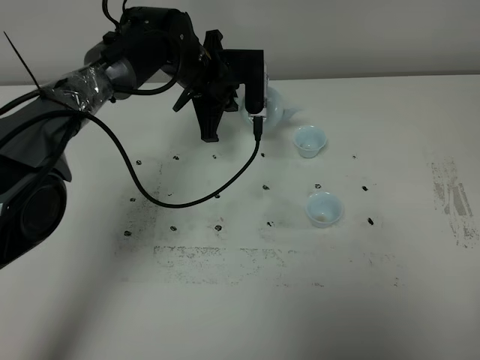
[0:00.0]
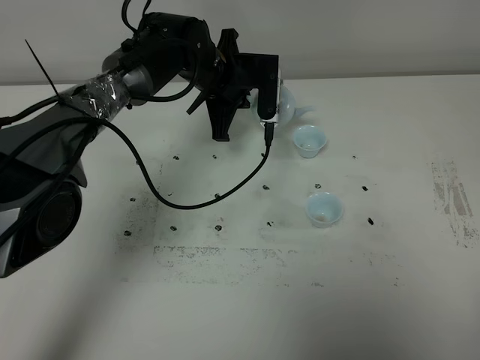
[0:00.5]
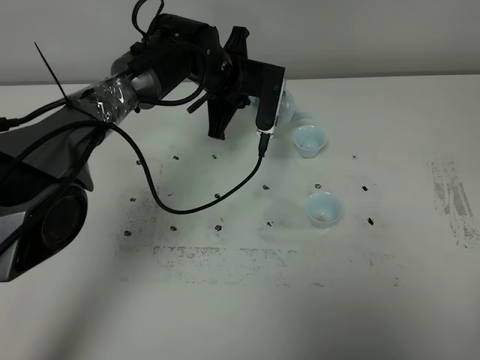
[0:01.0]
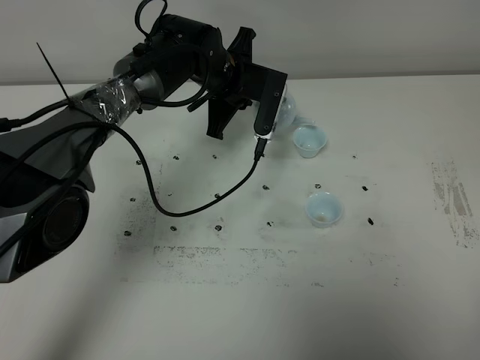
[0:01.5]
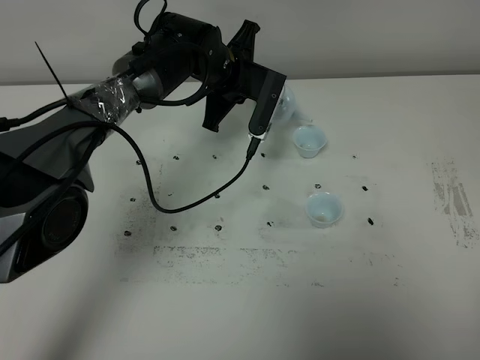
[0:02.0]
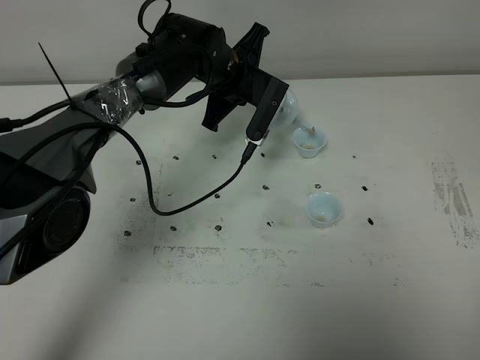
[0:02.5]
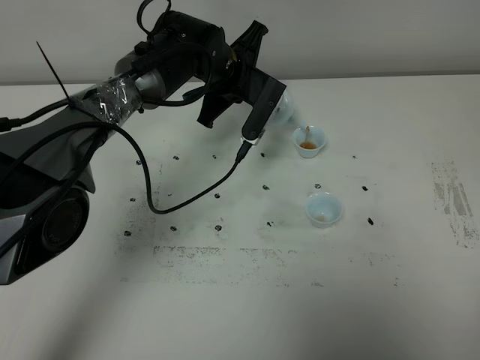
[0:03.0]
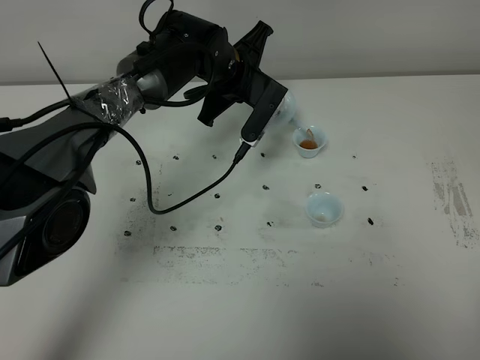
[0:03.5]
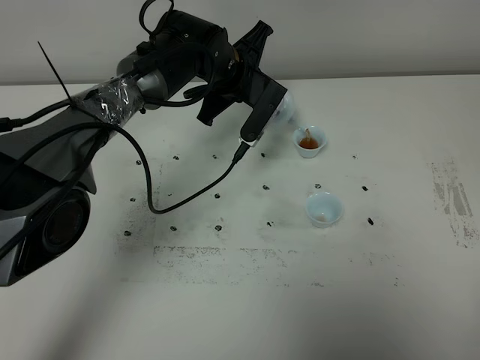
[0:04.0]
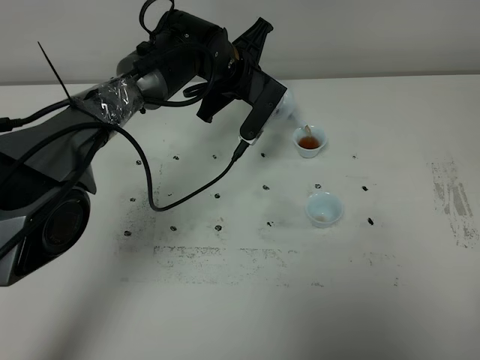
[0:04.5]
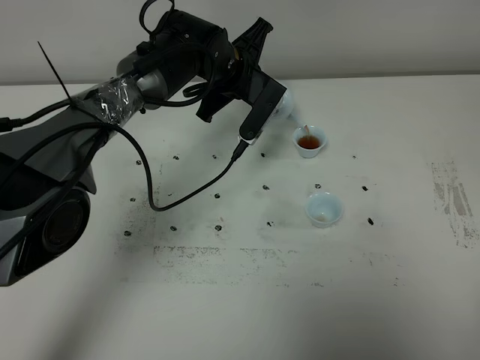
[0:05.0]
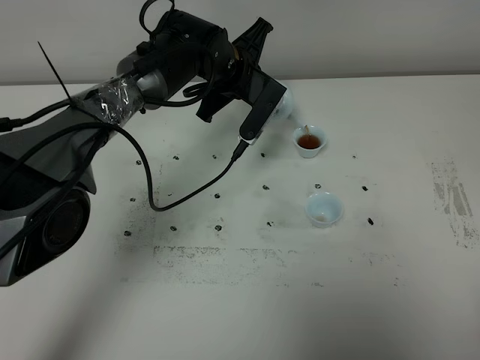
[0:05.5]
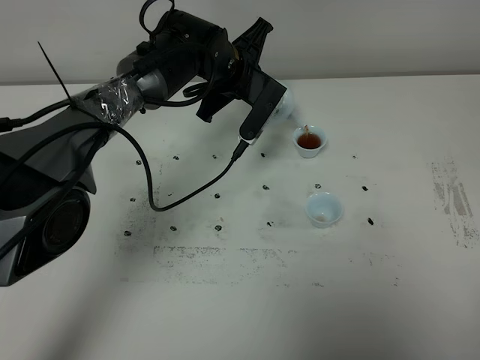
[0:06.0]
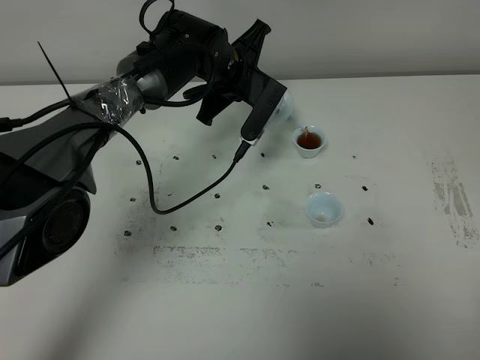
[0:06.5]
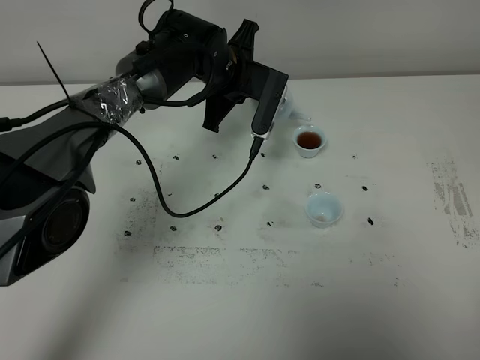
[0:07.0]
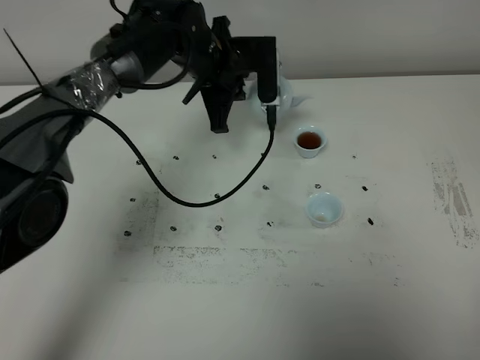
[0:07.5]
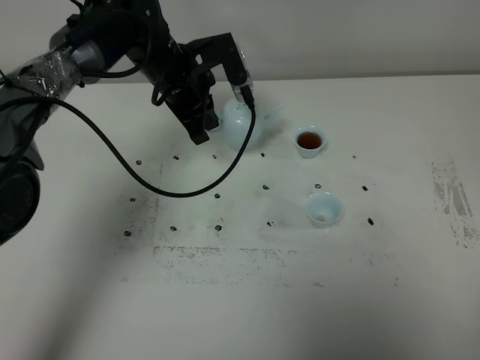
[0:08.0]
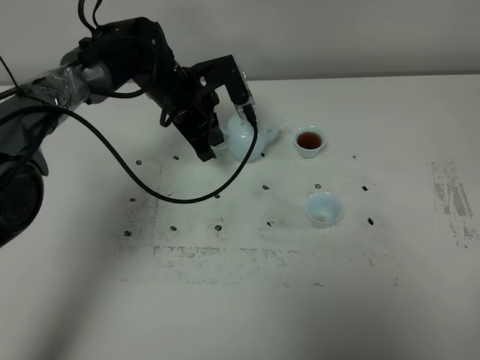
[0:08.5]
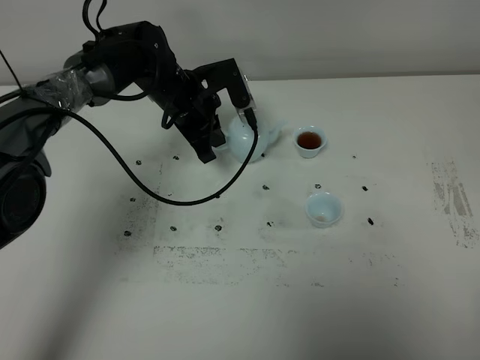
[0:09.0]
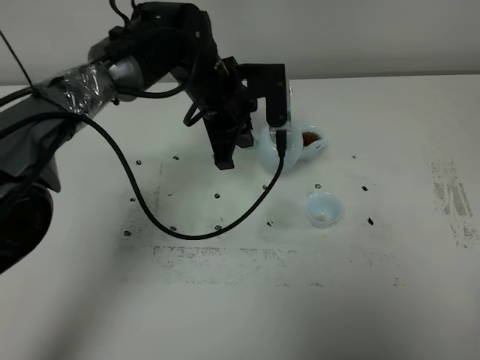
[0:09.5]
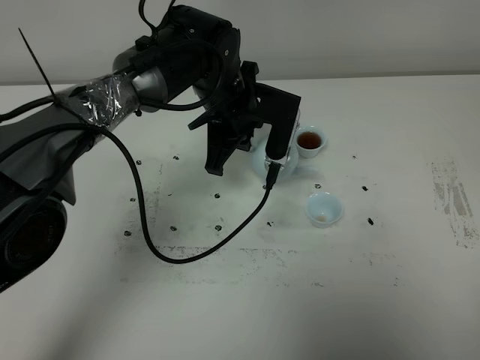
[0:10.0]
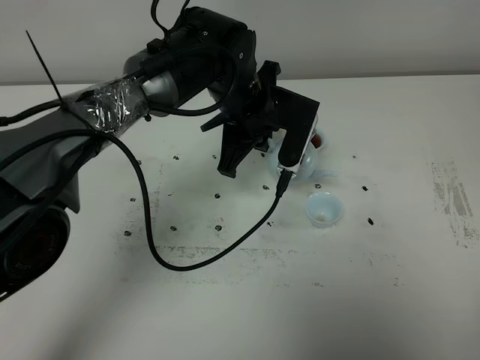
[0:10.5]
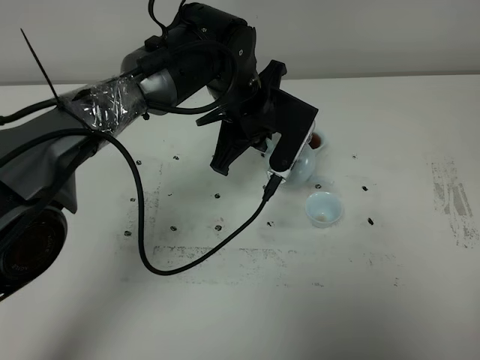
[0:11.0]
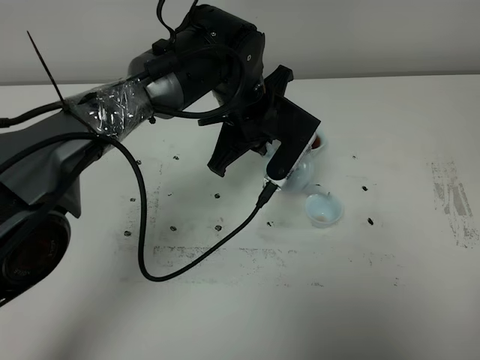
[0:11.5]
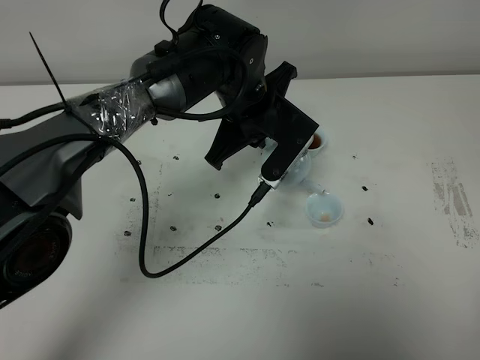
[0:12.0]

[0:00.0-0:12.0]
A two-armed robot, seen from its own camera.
Task of the whole recording: grasp the blue porcelain teapot and pour the tea into the two blue porcelain teacups one by one, put the blue porcelain teapot back in its original place.
2.0 to 4.0 s: The grippers make only small movements.
4.0 to 6.0 s: The two grippers keep their place.
6.0 to 8.0 s: The left gripper is displaced to the left by roughly 5 cm.
8.0 to 10.0 s: The left gripper shifts some 10 cm to the right and backward.

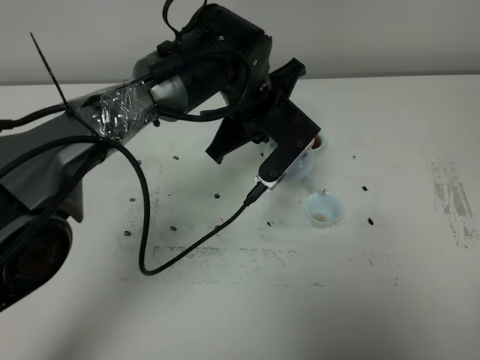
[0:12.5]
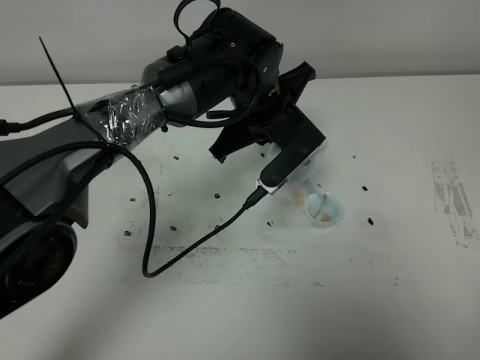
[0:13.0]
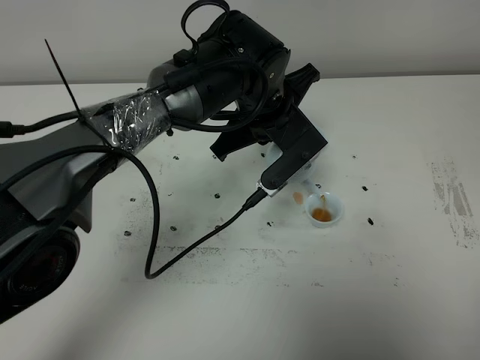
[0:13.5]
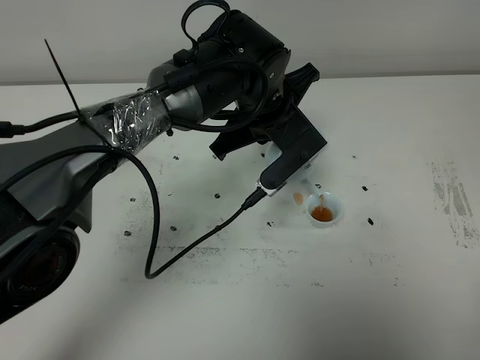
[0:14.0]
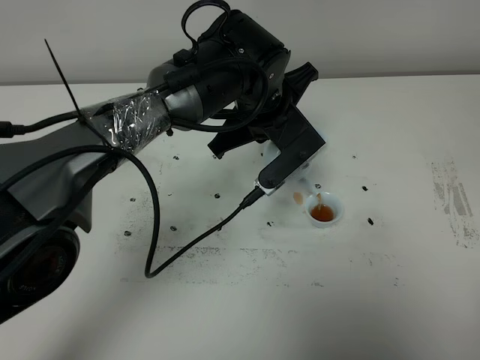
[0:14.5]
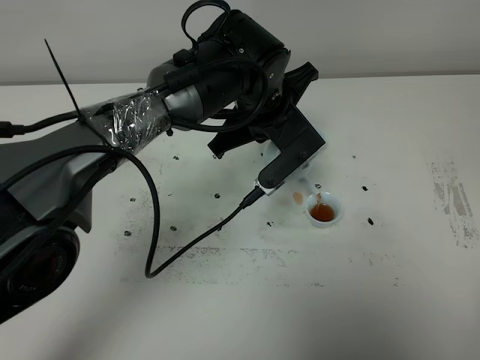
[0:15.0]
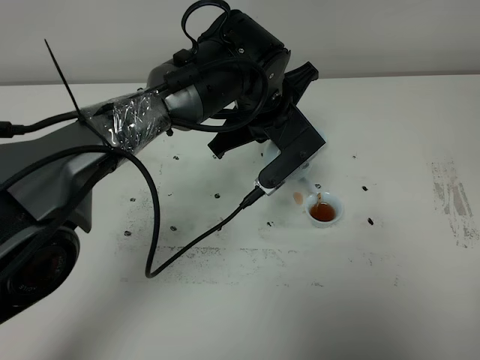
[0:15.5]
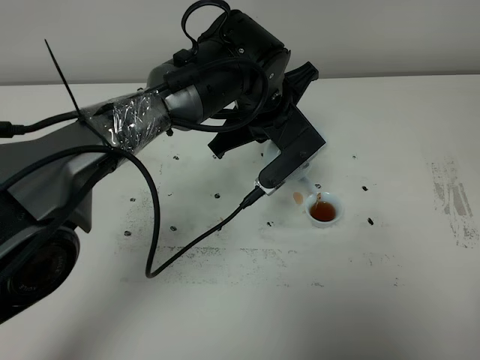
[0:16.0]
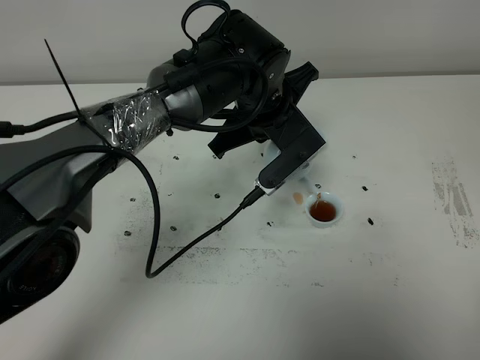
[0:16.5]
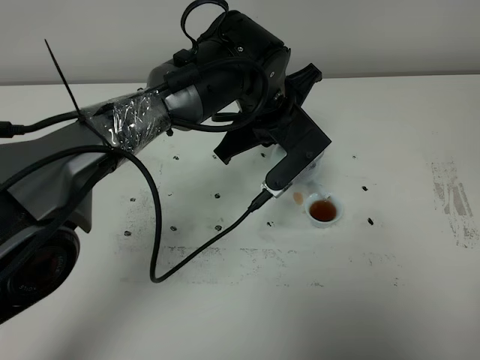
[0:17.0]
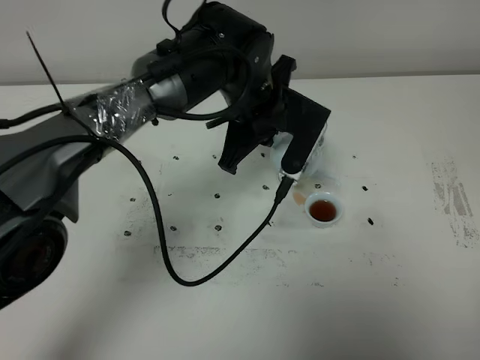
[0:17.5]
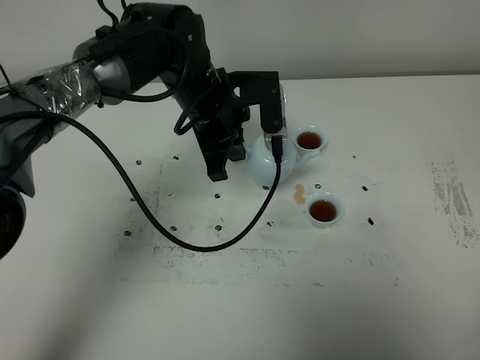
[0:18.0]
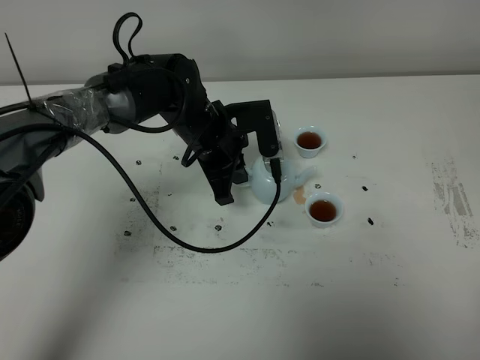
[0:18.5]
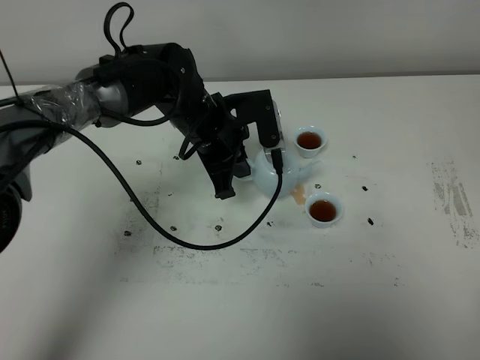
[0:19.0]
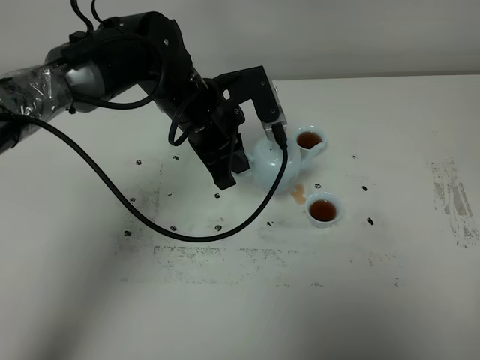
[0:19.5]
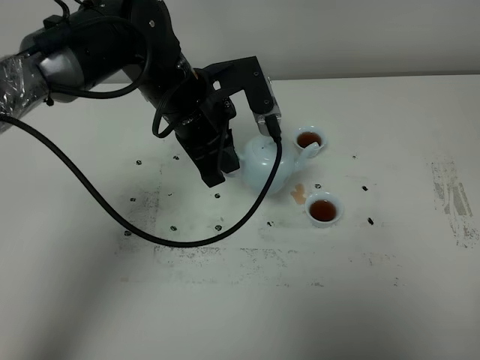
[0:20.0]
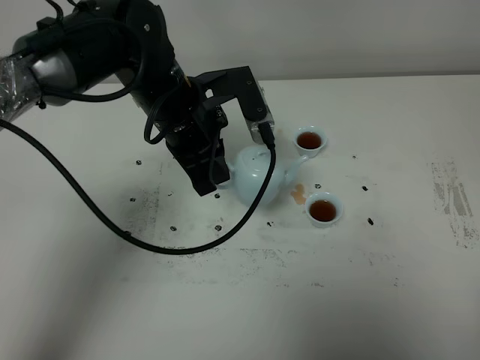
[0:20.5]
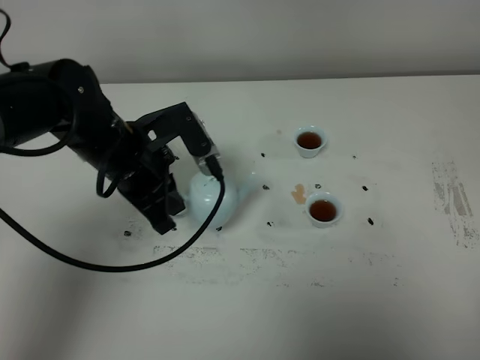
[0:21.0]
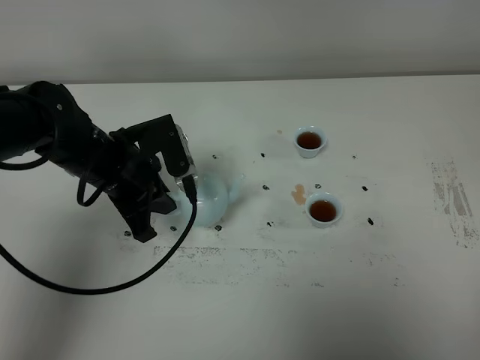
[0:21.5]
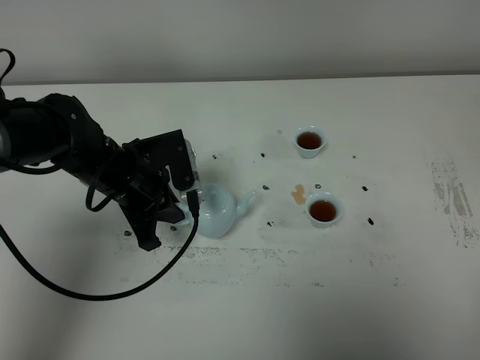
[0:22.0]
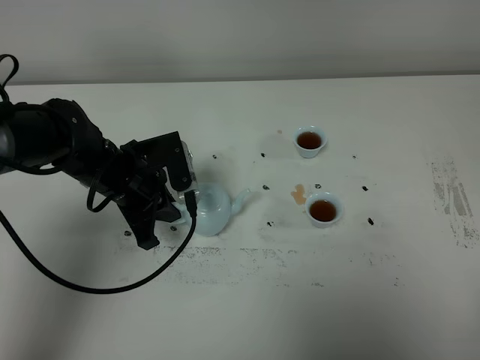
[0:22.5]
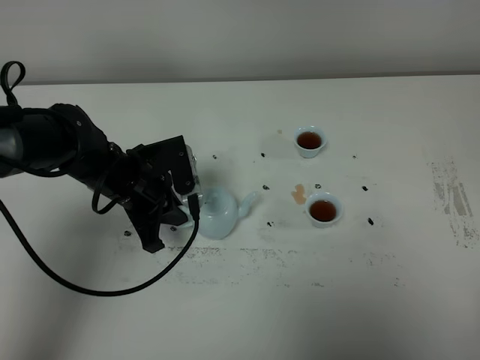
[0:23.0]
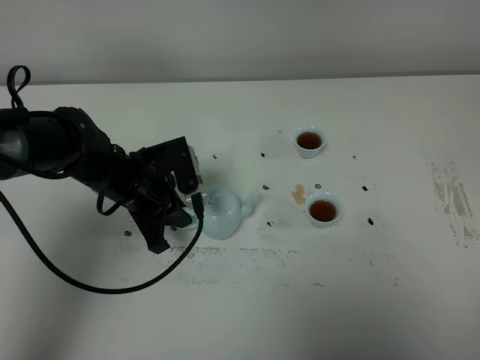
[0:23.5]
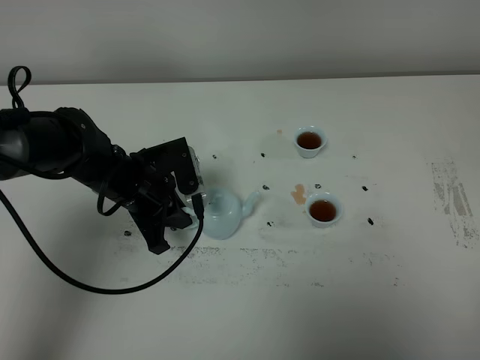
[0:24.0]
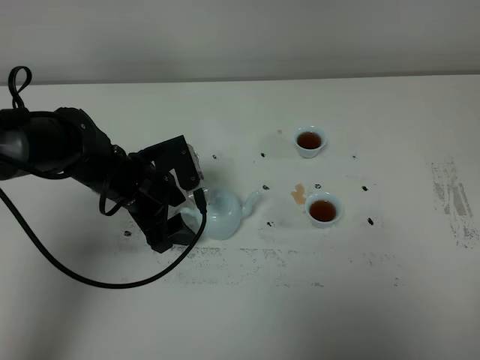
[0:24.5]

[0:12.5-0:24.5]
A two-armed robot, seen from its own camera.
Task of the whole recording: grasp the blue porcelain teapot and pour the tea into the two blue porcelain teacups one by one, put the blue porcelain teapot back in its original place.
12.5 to 14.5 s: There are only small adjustments of the grippers.
14.5 to 16.5 s: Both grippers stay about where they are.
16.5 to 18.5 s: The left gripper heads to the left and downward, covering roughly 10 cm.
18.5 to 20.5 s: The left gripper shifts approximately 10 cm upward and backward.
20.5 to 22.5 s: The left gripper heads downward and to the left, covering about 15 cm.
22.5 to 24.5 s: The left gripper opens its fingers.

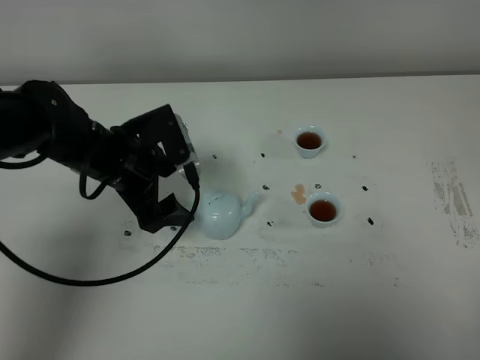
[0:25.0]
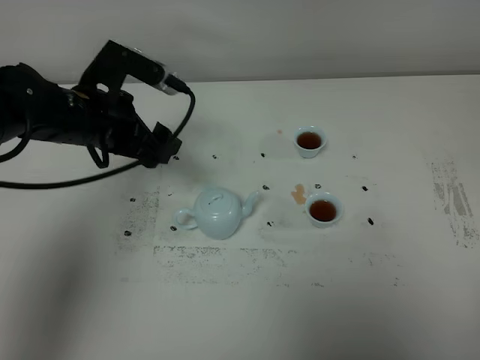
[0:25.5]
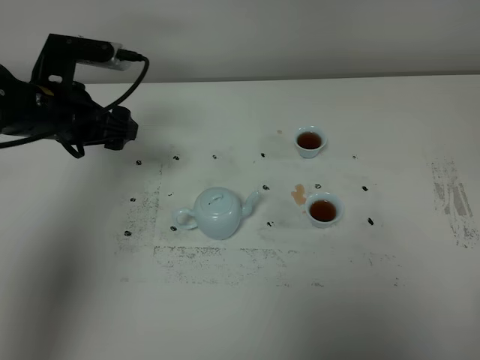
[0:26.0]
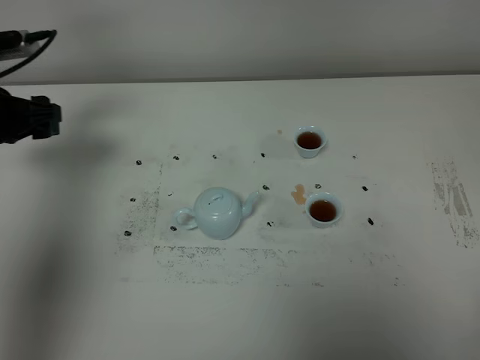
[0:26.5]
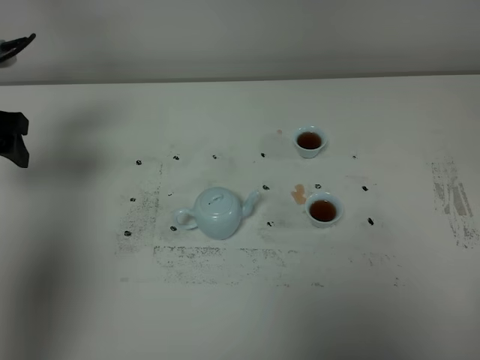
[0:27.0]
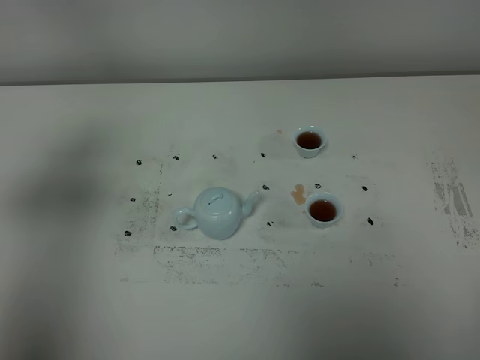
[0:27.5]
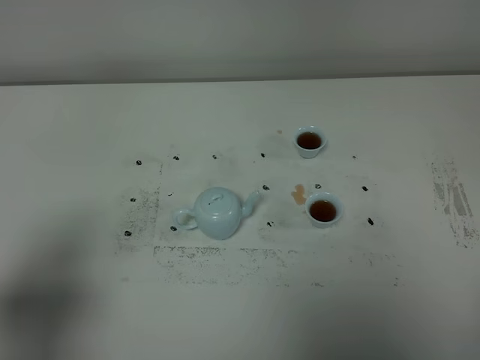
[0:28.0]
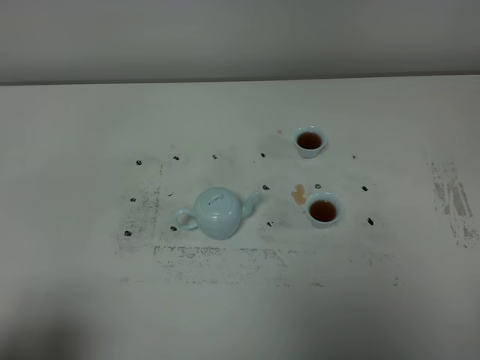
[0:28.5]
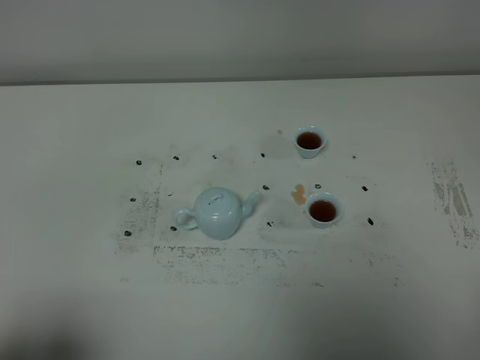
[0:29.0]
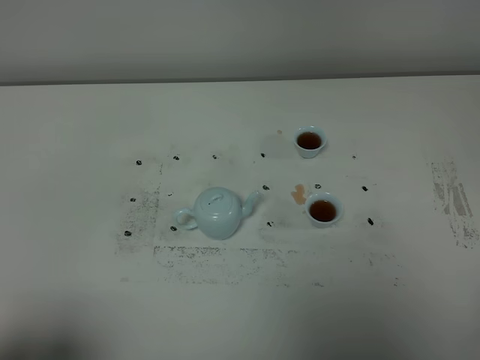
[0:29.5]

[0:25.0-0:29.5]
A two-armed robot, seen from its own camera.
Task of the whole recording: grasp the blue porcelain teapot and pour the tea into the two blue porcelain teacups one by one, put the blue porcelain teapot back in its original place.
25.0 to 27.0 s: The left gripper goes about 20 cm to the left and upward.
27.0 to 29.5 s: The left gripper moves backward, roughly 35 cm.
